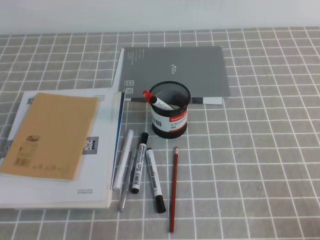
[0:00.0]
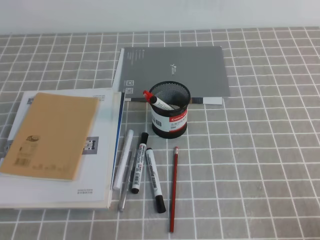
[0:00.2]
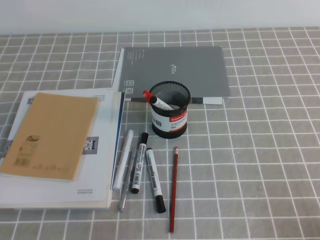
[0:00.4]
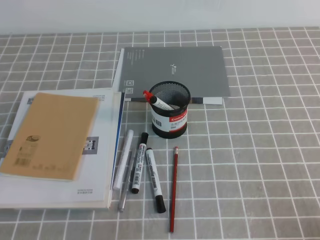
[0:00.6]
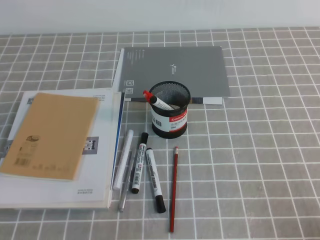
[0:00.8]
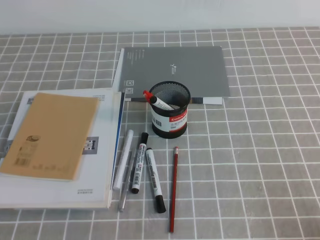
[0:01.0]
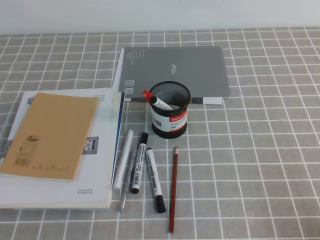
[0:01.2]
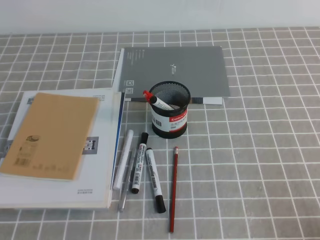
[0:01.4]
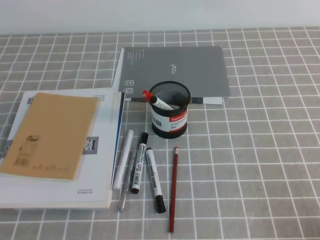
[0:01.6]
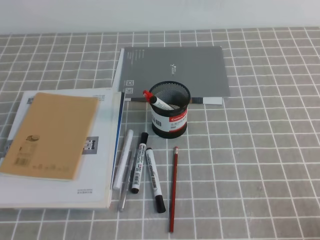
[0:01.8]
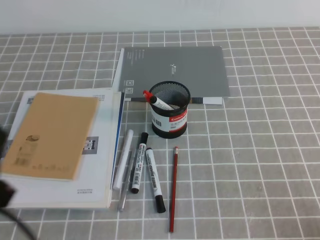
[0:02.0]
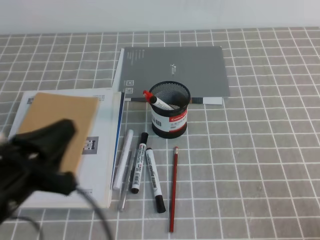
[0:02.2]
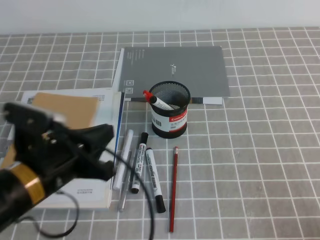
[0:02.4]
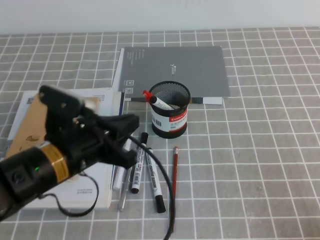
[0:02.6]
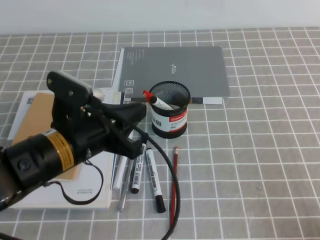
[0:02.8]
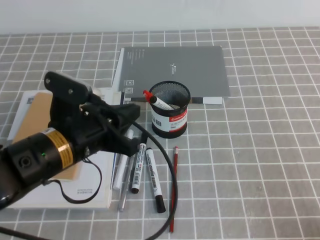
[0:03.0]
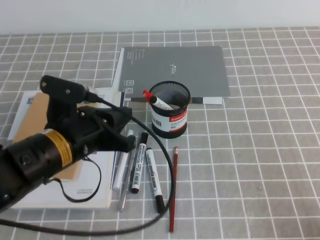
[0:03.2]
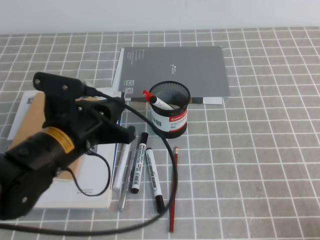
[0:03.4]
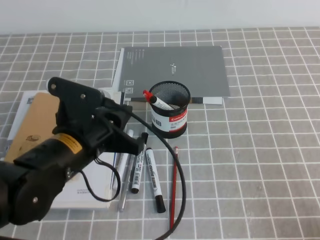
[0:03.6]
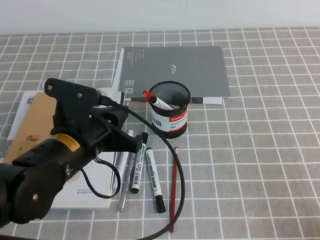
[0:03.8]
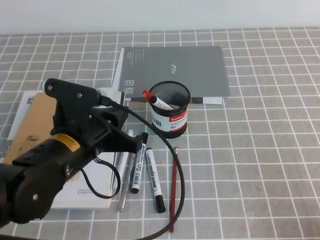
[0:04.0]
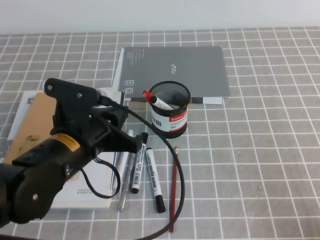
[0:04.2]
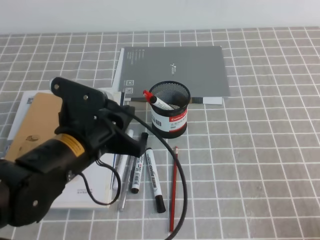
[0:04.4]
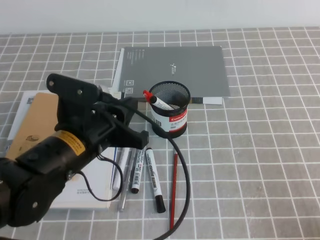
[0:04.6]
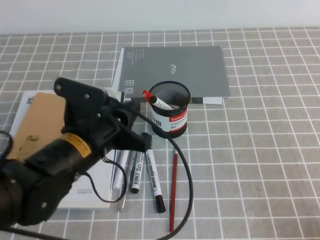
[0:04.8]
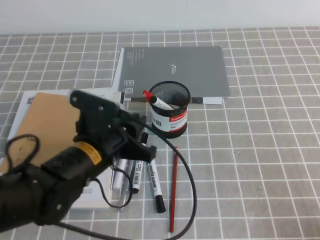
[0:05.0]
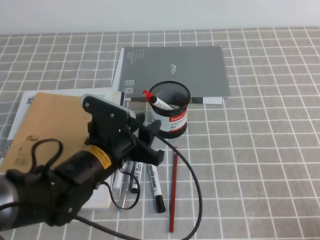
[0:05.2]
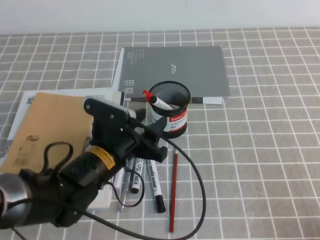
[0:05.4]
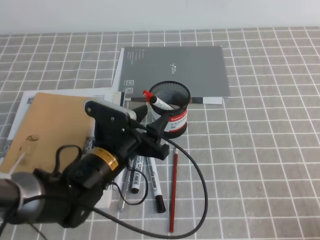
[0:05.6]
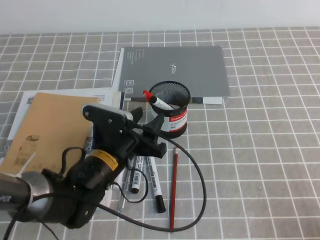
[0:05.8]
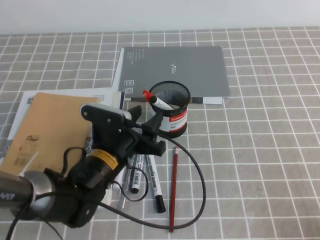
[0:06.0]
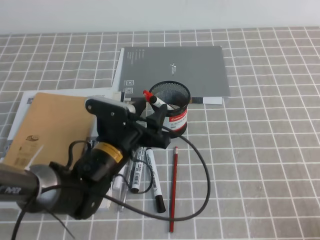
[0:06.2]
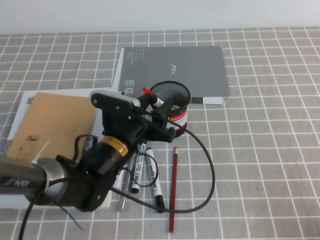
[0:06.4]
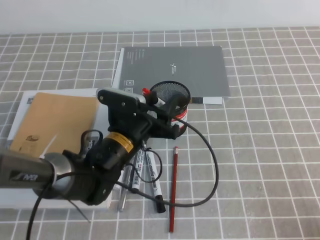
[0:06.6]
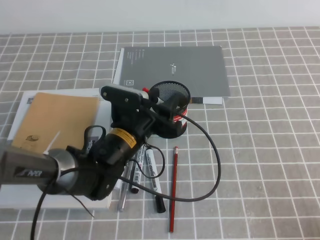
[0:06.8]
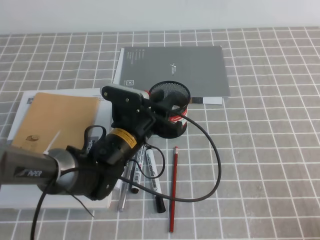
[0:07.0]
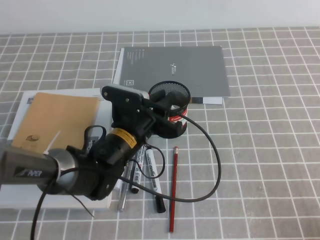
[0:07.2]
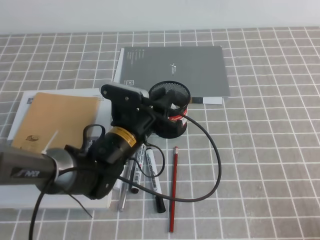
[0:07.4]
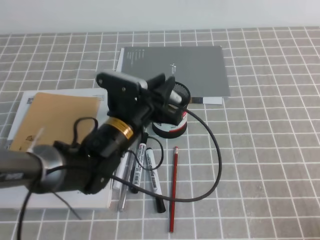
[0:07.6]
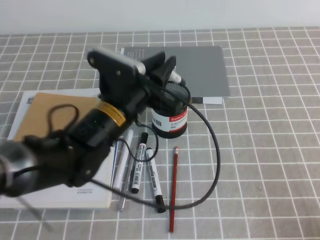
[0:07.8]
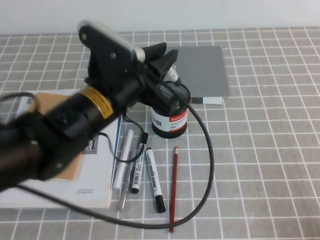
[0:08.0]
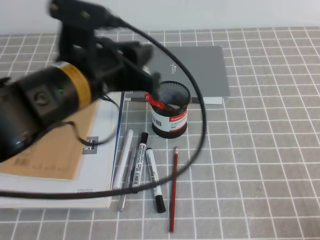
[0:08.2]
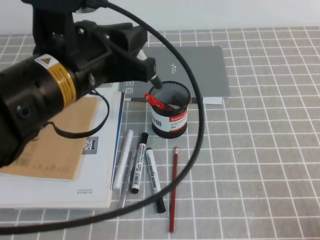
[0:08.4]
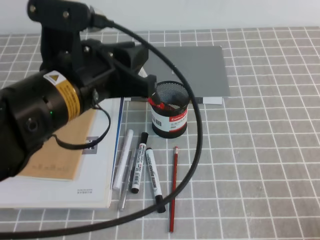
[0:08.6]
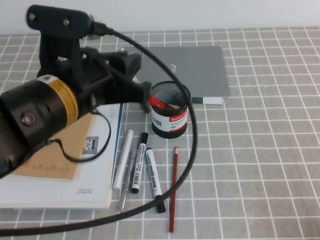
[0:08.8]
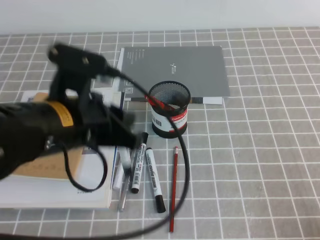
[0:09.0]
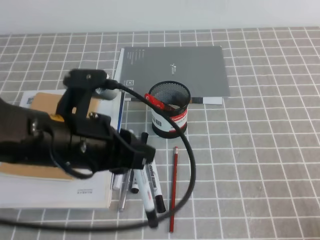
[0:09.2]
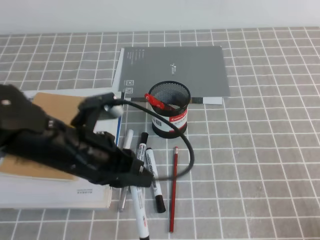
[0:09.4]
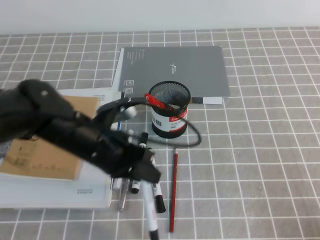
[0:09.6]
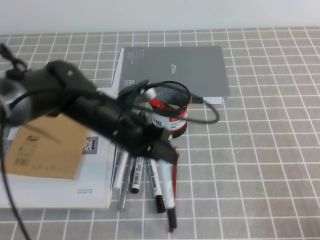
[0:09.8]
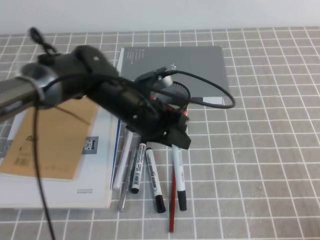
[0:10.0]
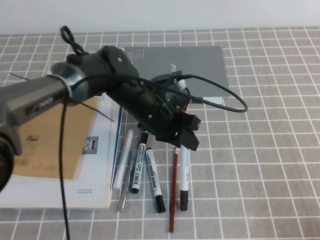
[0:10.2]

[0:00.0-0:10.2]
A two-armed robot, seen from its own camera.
0:01.4 to 0:03.0: The left gripper moves forward and to the right, approximately 25 cm.
0:03.0 to 0:04.4: The grippers make only small movements.
0:04.4 to 0:05.8: The left gripper heads downward, covering about 10 cm, and opens.
0:05.8 to 0:07.2: The left gripper ends up some 5 cm from where it was, and closes its fingers.
0:07.2 to 0:08.8: The left gripper goes approximately 20 cm upward and backward.
0:08.8 to 0:10.2: The left gripper moves downward, forward and to the right, some 15 cm.

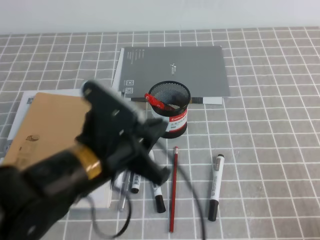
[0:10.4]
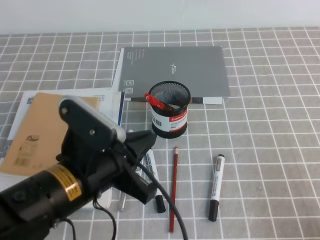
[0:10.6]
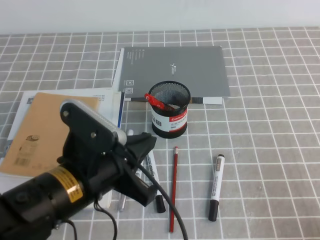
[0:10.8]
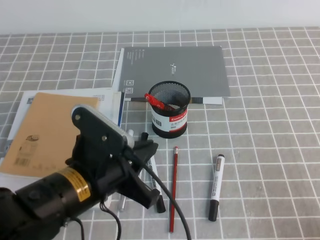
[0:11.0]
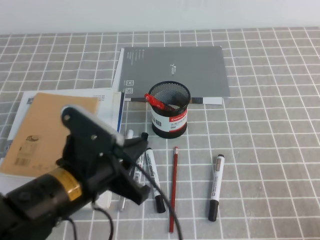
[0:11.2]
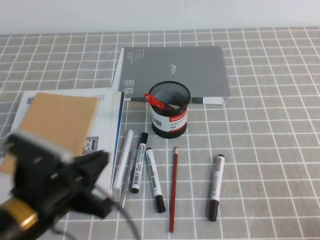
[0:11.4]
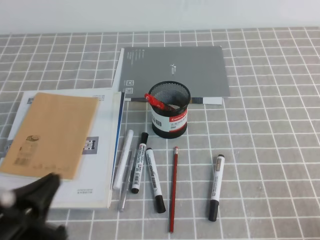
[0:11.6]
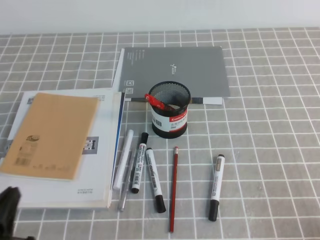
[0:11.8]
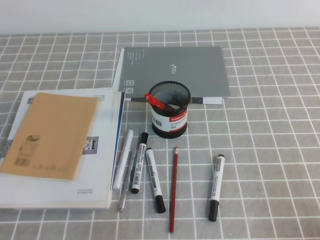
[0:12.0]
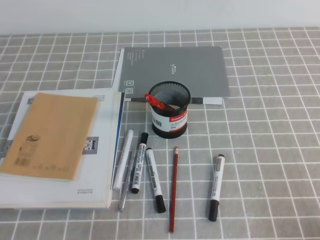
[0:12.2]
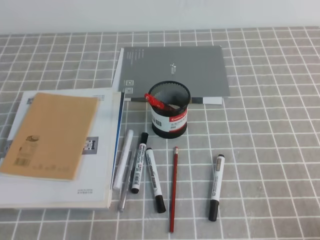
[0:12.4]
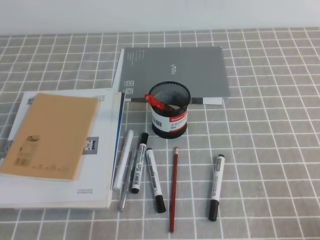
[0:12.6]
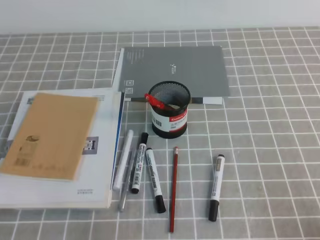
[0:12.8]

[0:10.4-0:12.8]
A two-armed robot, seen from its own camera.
Step, 0:10.4 to 0:12.8: Pick up the pen from the pen holder.
0:10.4 to 0:11.6: The left gripper shifts approximately 20 cm to the left and backward.
0:11.6 to 0:12.8: The left gripper goes roughly 10 cm backward and to the left.
